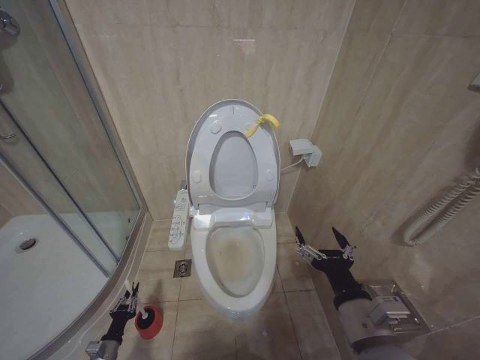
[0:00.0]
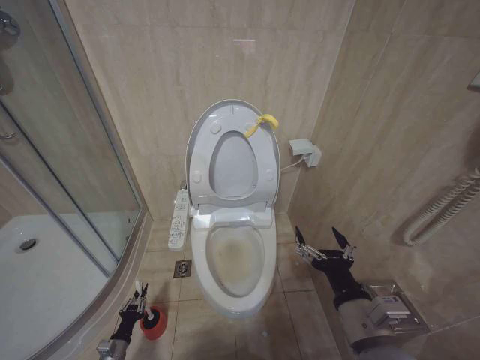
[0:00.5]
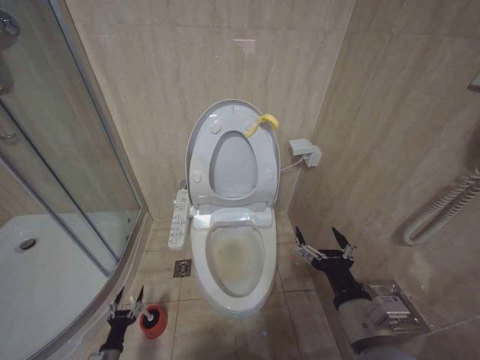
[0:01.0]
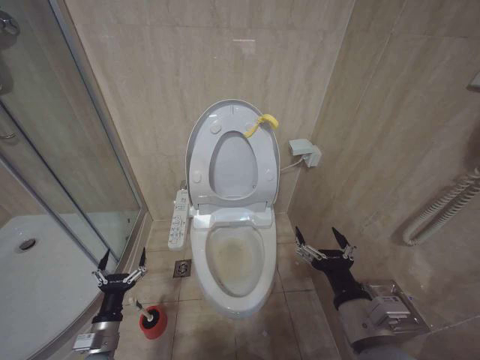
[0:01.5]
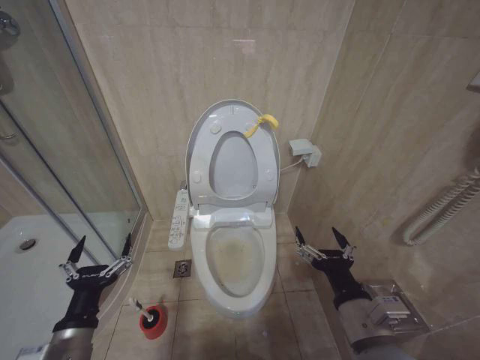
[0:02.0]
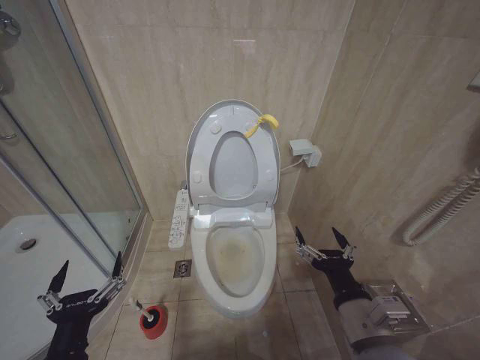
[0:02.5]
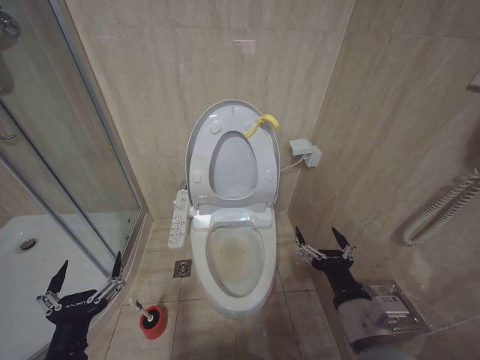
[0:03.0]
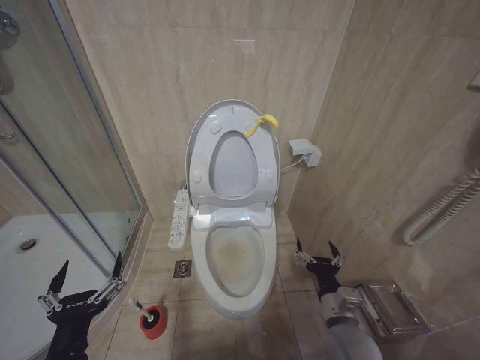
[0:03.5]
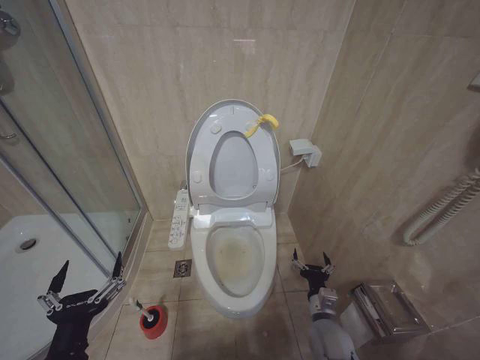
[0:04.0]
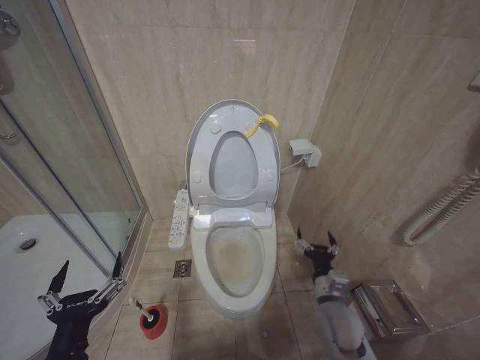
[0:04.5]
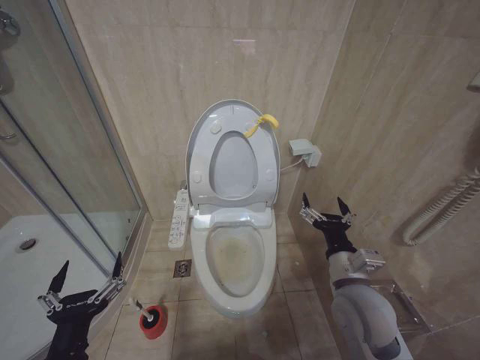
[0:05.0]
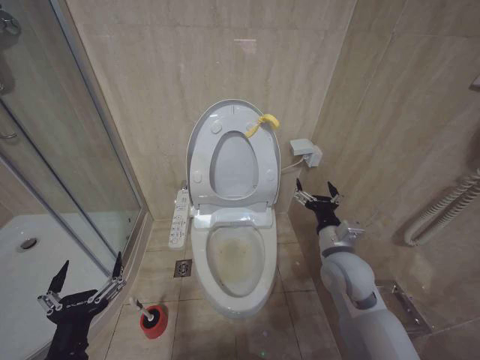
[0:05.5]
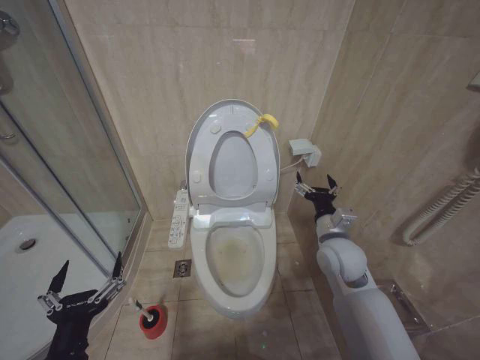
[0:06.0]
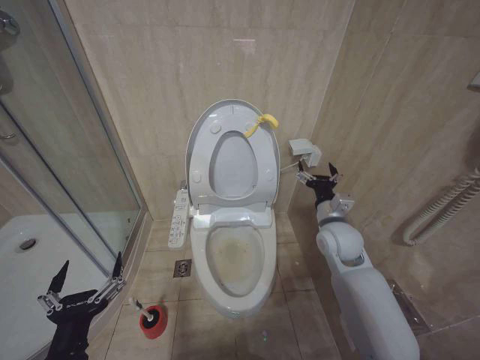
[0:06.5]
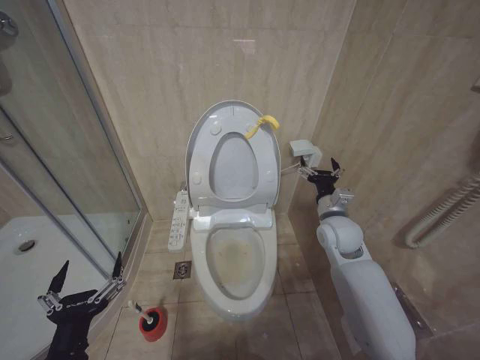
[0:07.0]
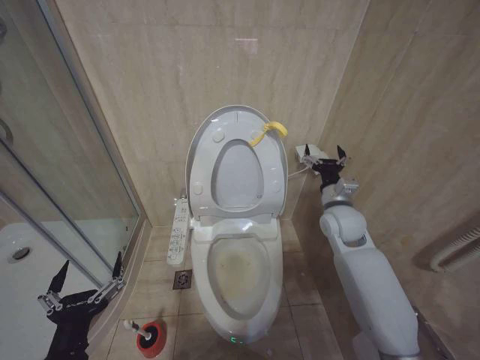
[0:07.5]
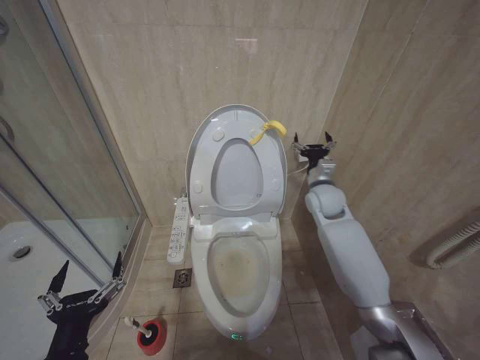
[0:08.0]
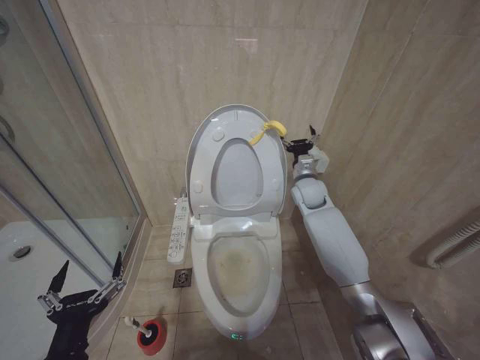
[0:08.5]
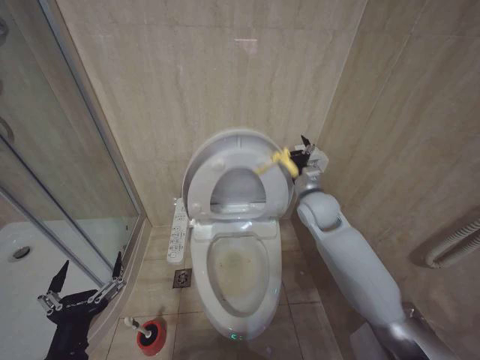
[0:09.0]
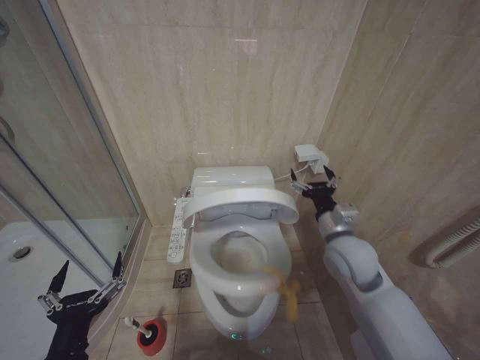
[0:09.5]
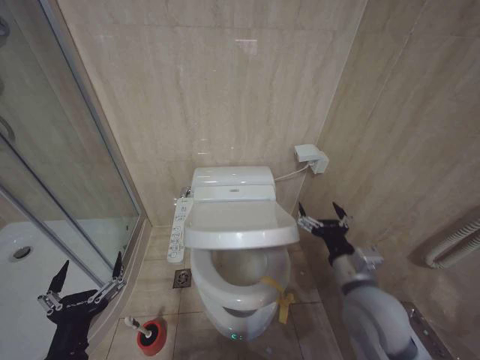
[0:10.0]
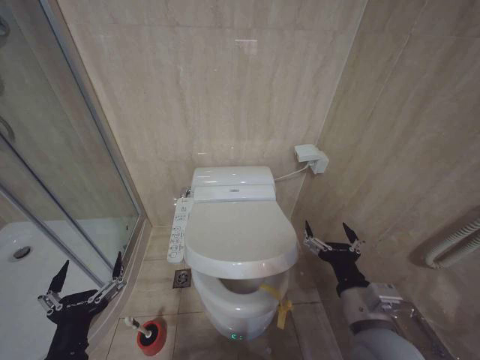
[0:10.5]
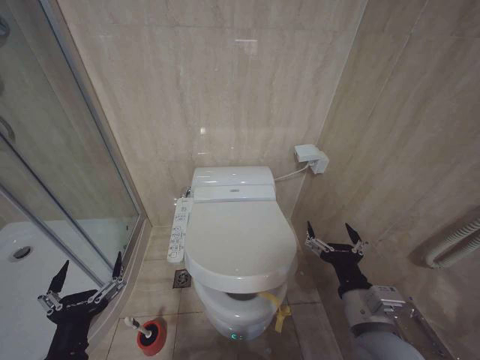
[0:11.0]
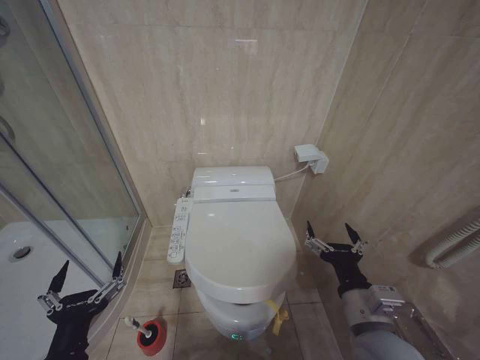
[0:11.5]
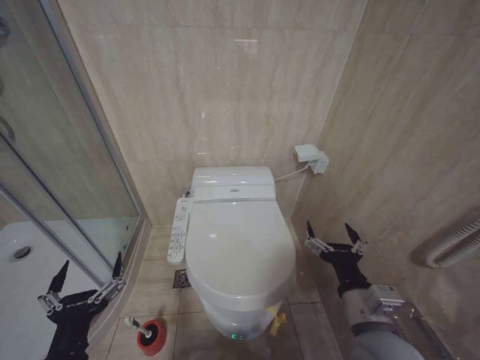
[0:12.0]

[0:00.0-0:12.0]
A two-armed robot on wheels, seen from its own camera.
Task of the whole recording: Open the toilet lid, clean the toilet bowl with a toilet brush, close the toilet lid, and flush.
0:00.0 to 0:02.0: The left gripper is displaced upward by roughly 35 cm, and opens up.
0:02.0 to 0:04.0: The left gripper goes approximately 5 cm backward; the right gripper is displaced downward and forward by approximately 20 cm.
0:04.0 to 0:06.0: The right gripper shifts some 20 cm upward and forward.
0:06.0 to 0:08.0: The right gripper heads forward and upward, covering approximately 15 cm.
0:08.0 to 0:10.0: The right gripper is displaced backward by some 25 cm.
0:10.0 to 0:12.0: The right gripper is displaced backward by about 10 cm.

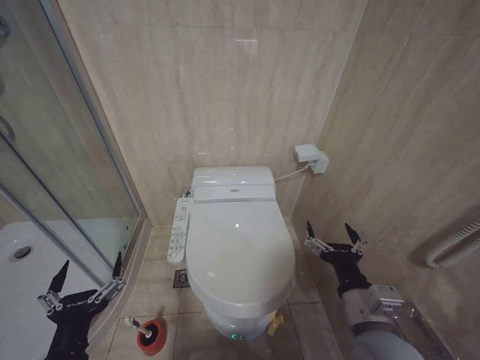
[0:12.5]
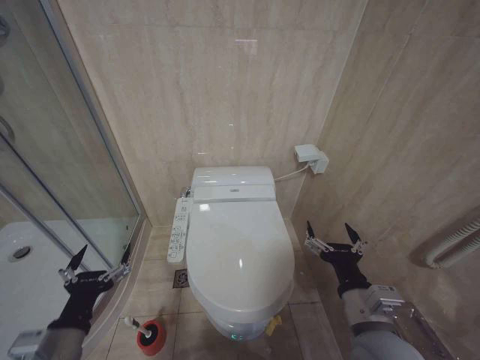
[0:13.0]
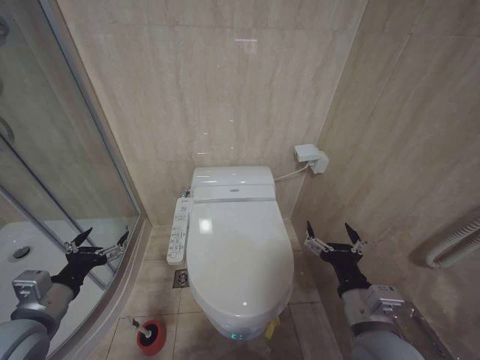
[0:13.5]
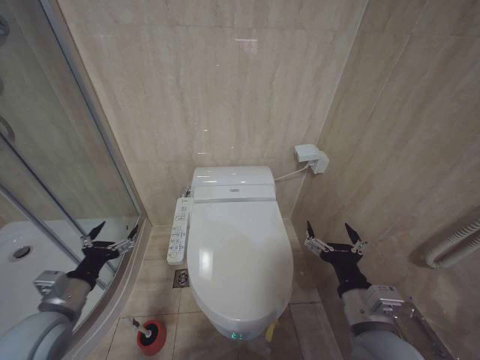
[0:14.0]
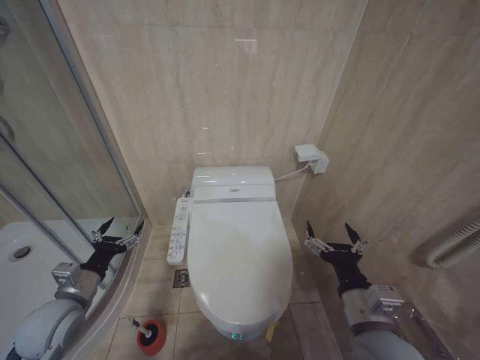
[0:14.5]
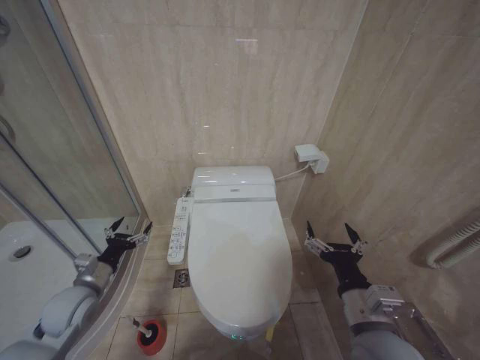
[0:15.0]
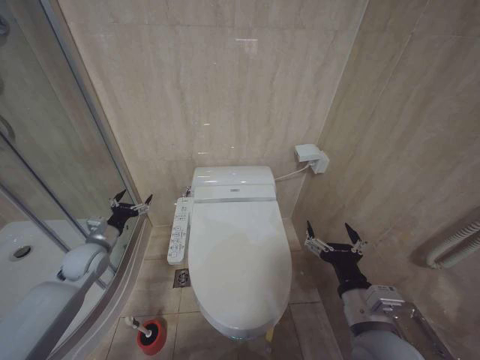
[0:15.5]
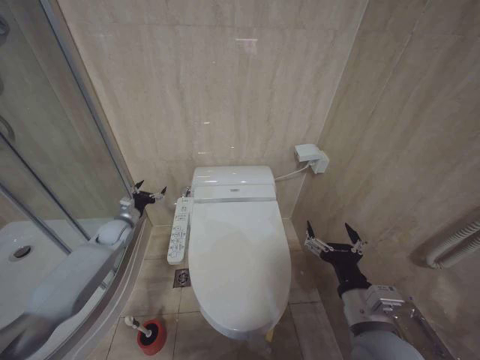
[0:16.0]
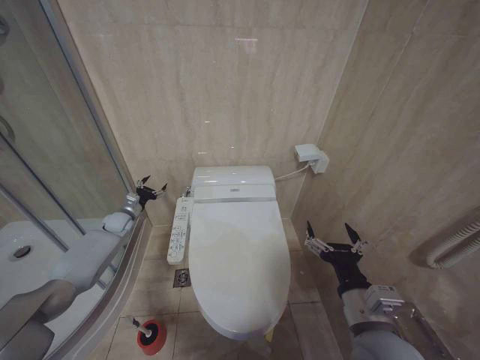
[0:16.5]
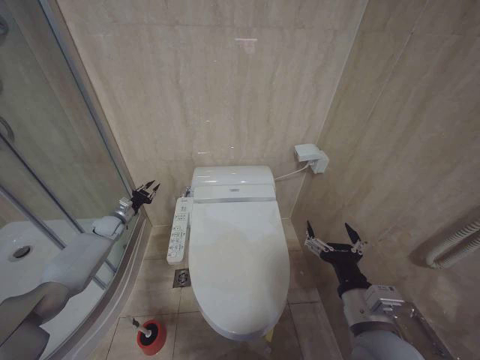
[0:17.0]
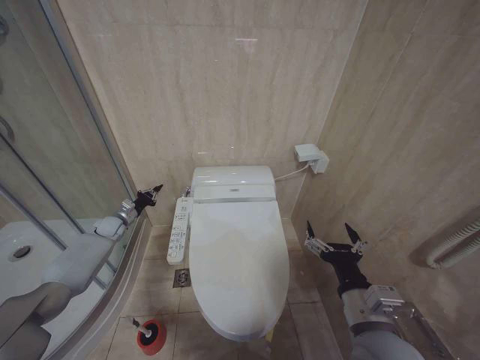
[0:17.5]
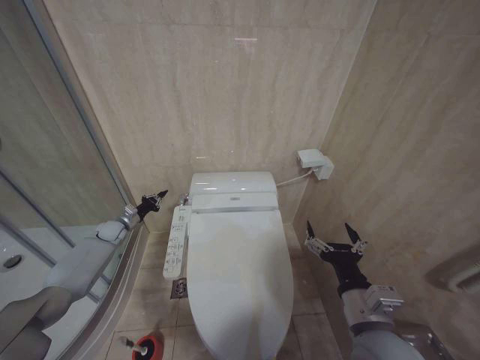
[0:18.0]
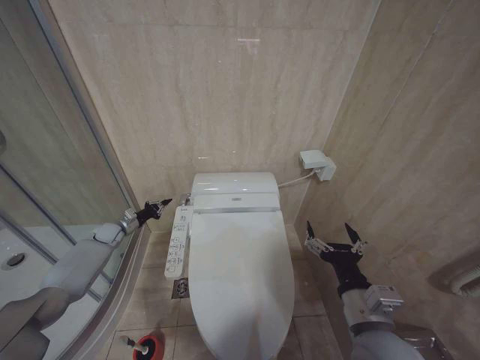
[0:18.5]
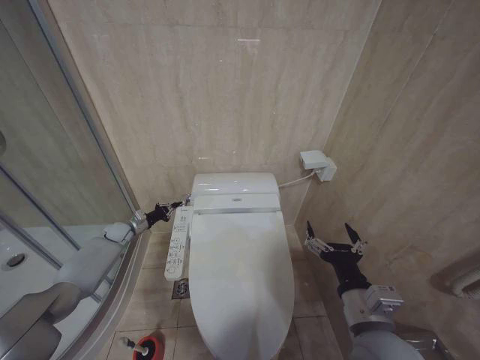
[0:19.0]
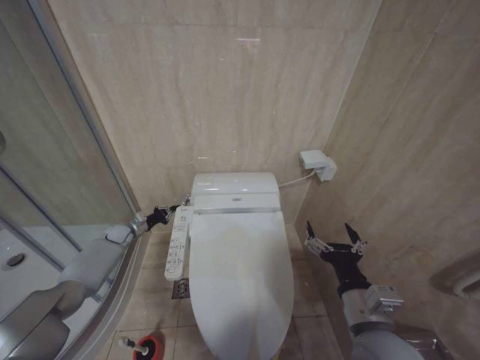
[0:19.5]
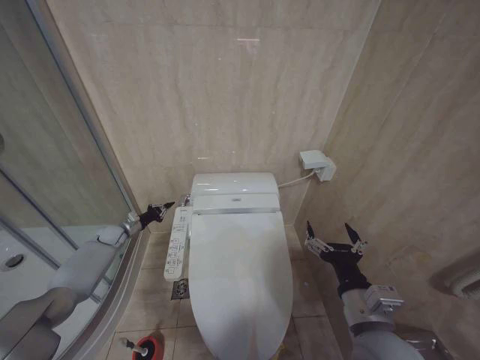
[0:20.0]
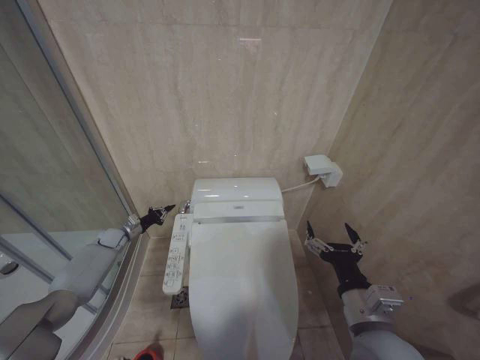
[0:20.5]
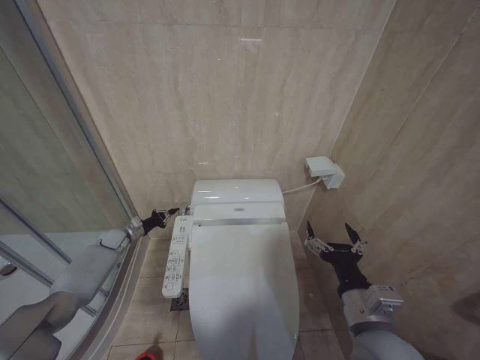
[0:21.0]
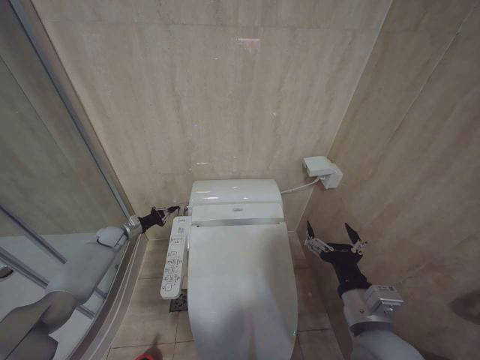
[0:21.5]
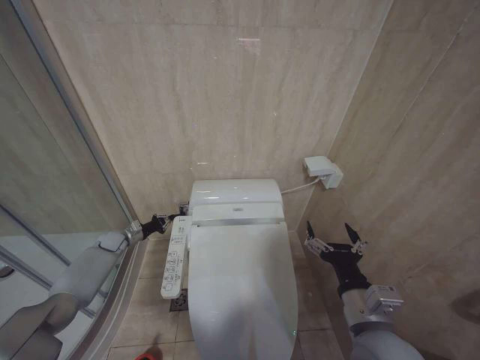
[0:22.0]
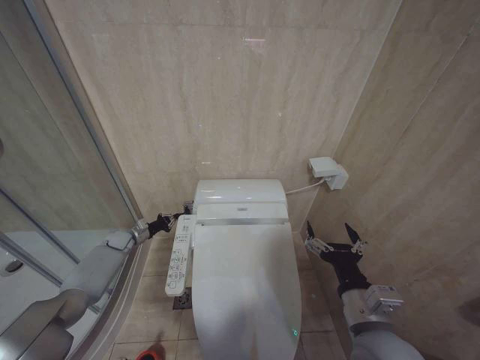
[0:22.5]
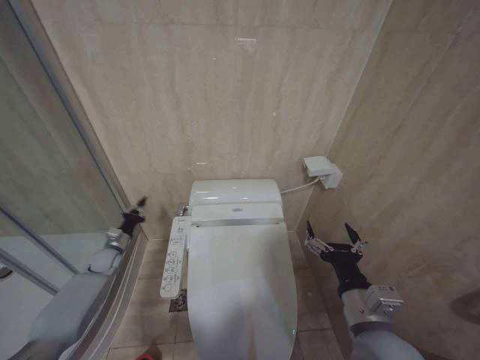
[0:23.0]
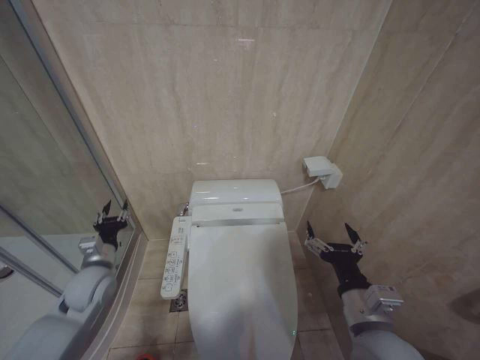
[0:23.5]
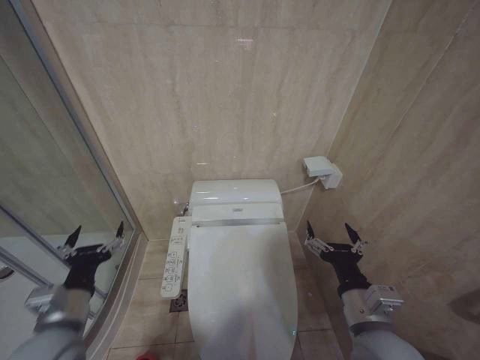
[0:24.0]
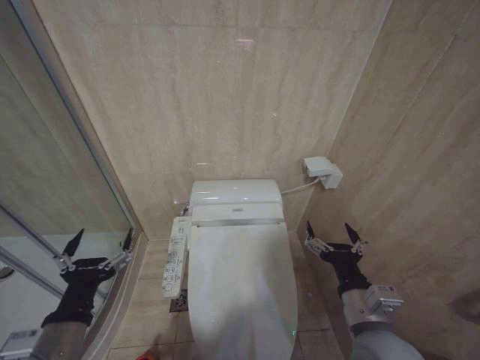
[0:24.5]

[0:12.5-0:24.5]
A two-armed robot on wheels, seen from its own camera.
Task of the whole recording: Open the toilet lid, clean the toilet bowl with a toilet brush, close the toilet lid, and flush.
0:12.5 to 0:14.5: The left gripper moves forward and to the left, some 20 cm.
0:14.5 to 0:16.5: The left gripper is displaced forward by some 30 cm.
0:16.5 to 0:18.5: The left gripper shifts by some 5 cm, and closes up.
0:18.5 to 0:22.5: There are only small adjustments of the grippers.
0:22.5 to 0:24.5: The left gripper moves backward and upward, approximately 50 cm, and opens its fingers.

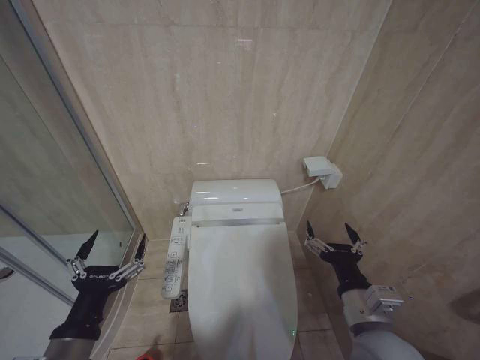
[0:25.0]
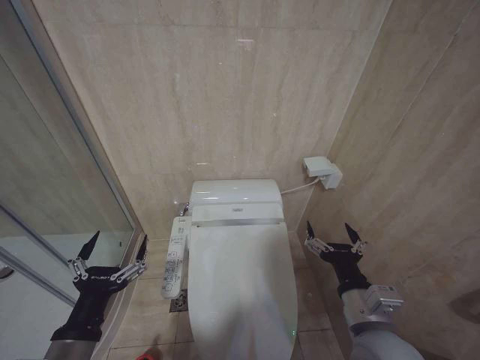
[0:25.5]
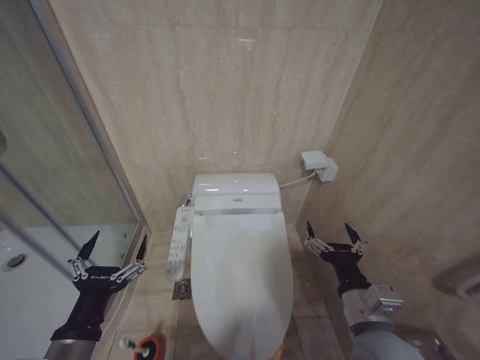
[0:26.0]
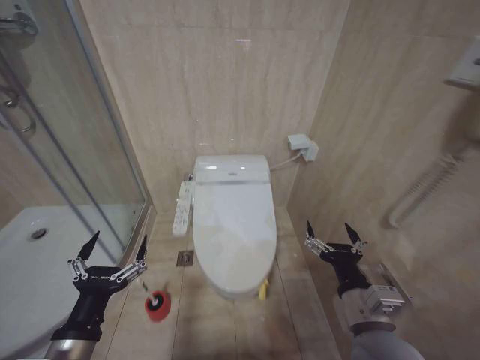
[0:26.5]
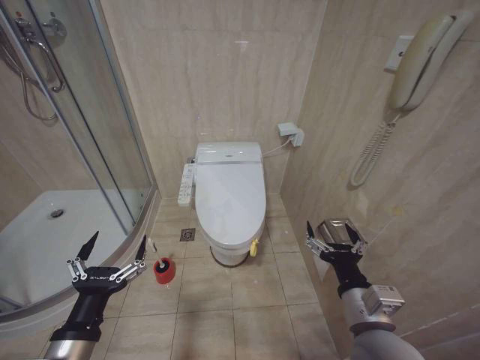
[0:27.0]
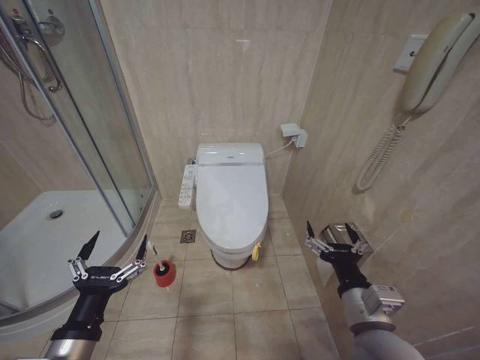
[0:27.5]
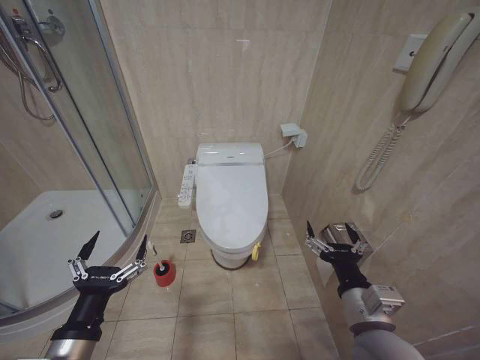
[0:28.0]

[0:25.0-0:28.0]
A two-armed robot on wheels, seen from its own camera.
Task of the whole recording: Open the toilet lid, clean the toilet bowl with a toilet brush, close the toilet lid, and flush.
0:25.0 to 0:28.0: The two grippers keep their place.
